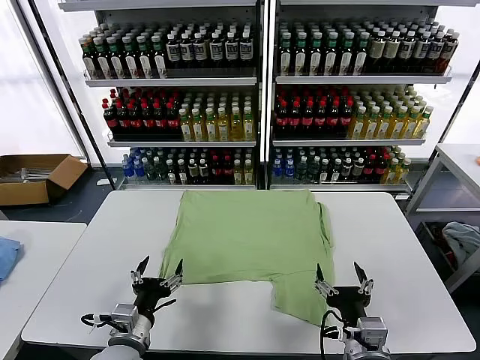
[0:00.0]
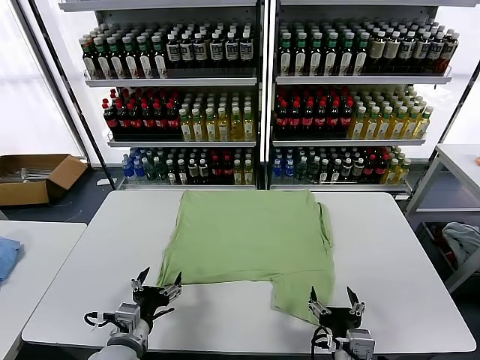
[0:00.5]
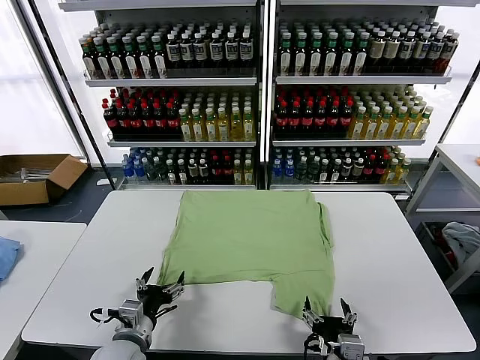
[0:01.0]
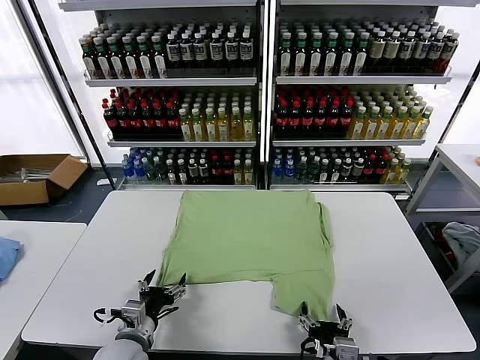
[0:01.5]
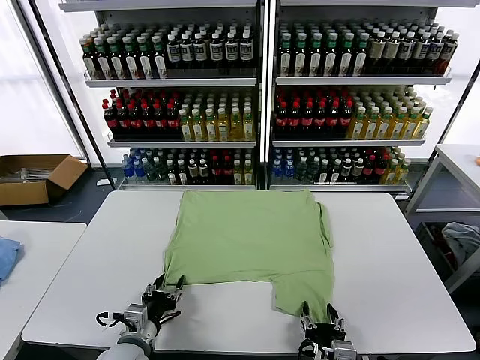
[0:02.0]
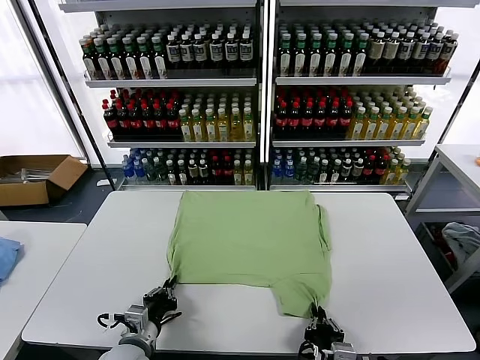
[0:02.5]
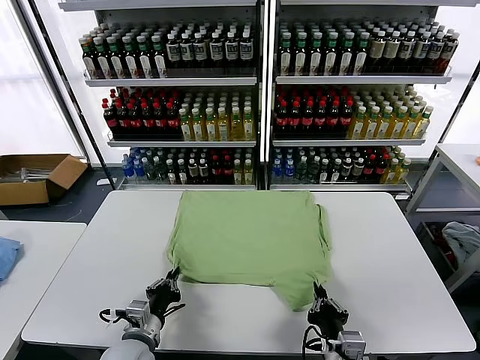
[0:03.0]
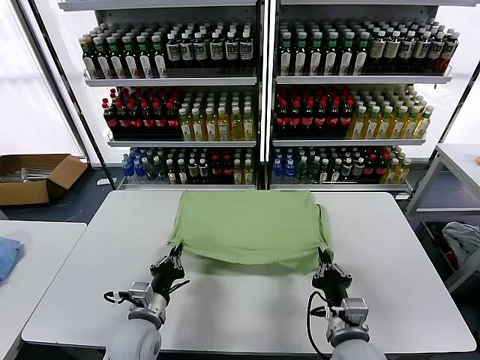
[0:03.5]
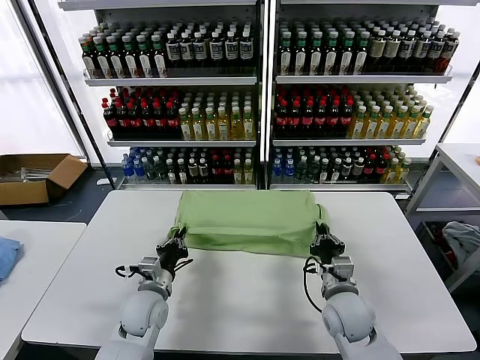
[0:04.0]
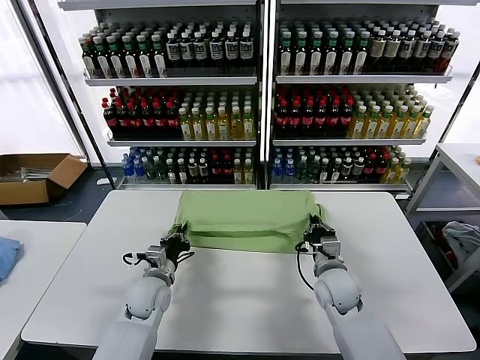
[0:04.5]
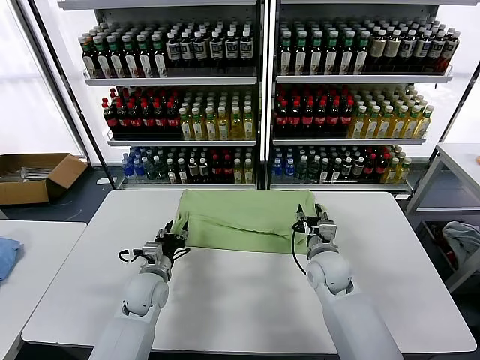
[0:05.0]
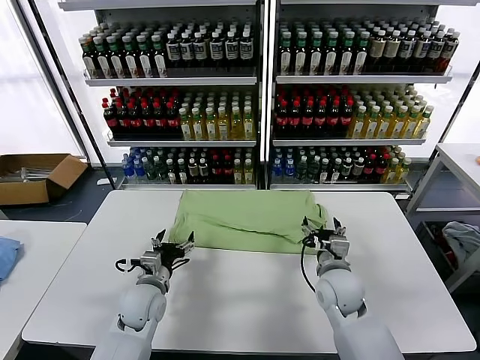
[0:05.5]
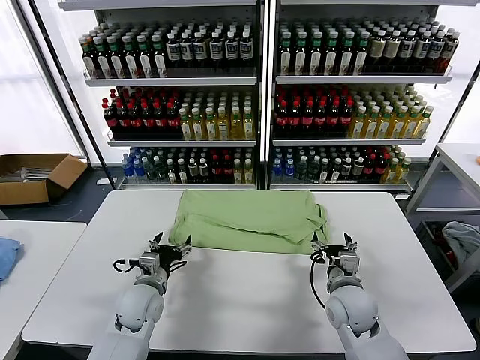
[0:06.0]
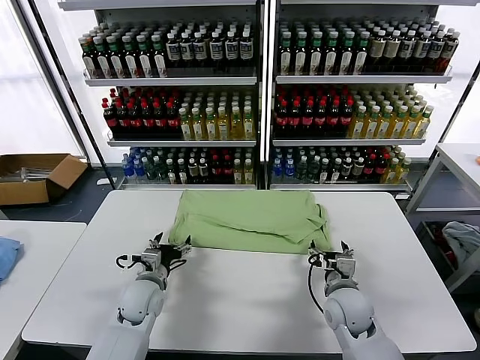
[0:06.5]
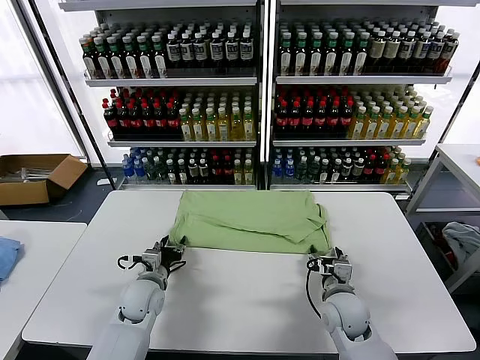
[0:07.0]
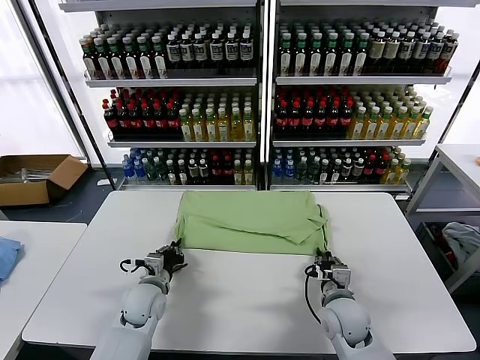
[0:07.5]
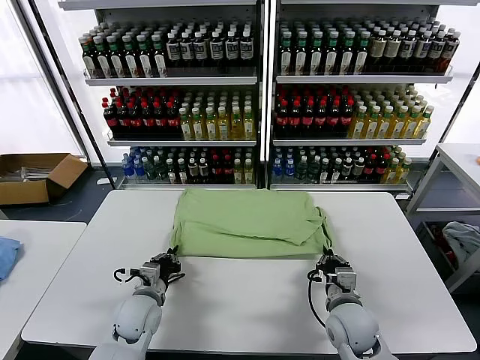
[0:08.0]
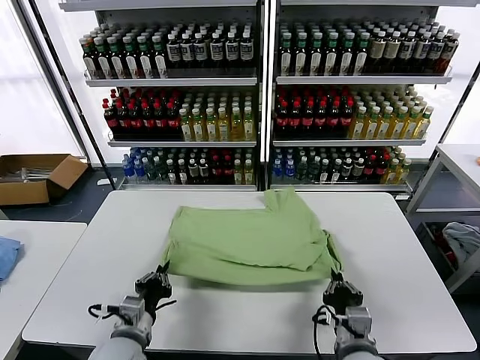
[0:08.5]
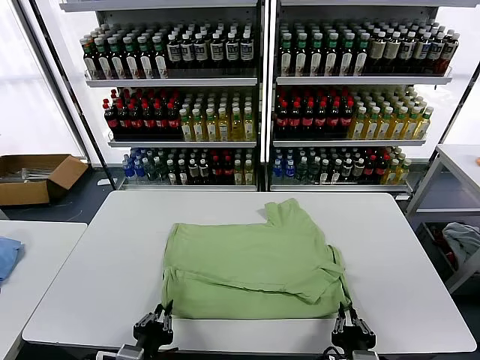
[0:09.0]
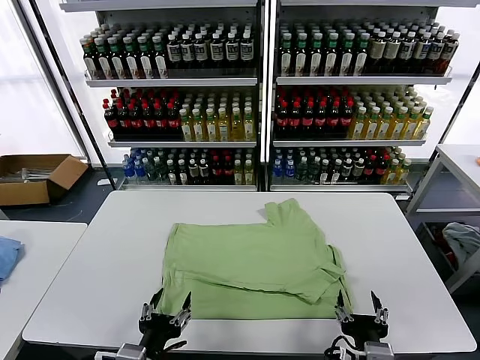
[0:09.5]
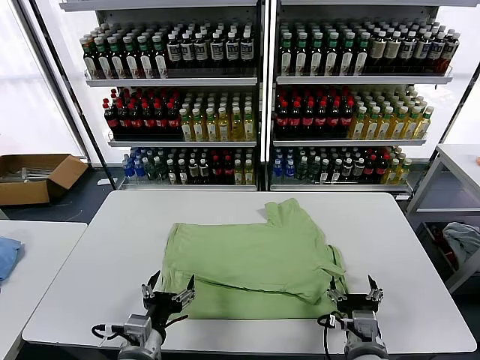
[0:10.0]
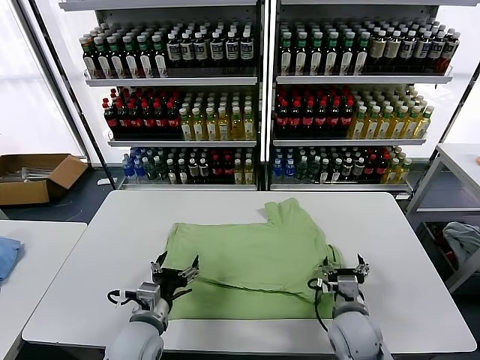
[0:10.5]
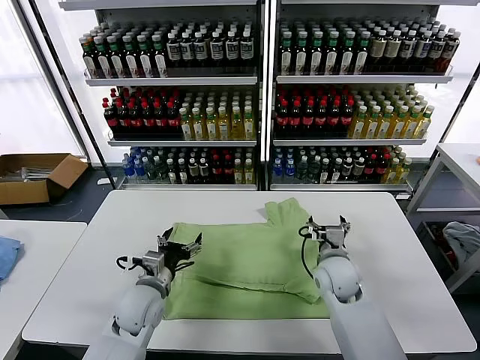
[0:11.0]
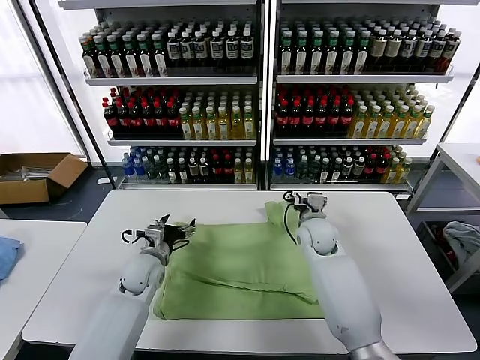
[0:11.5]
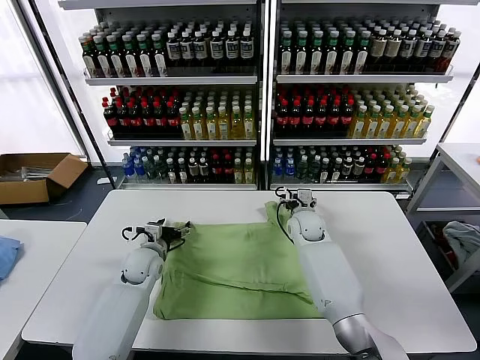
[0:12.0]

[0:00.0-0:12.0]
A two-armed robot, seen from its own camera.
Task of the whole recording: fold and organize the clothes.
Step, 0.0 to 2.5 s: use both grippers simultaneously to clamp the lower edge of the clothing fabric.
Step, 3.0 to 5.0 s: use both grippers to drag the lower edge of the fabric forward and fold it over the upper edge.
Step, 5.5 to 9.0 s: Drag the clothes downward with both gripper.
2.0 to 4.0 s: The right gripper goes approximately 20 cm forward, and closes. The left gripper moves forward, approximately 10 cm, and closes up.
4.0 to 6.0 s: The left gripper opens its fingers, while the right gripper goes forward and returns, roughly 5 cm each way, and opens.
6.0 to 8.0 s: The right gripper heads backward, covering roughly 5 cm, and closes up. The left gripper closes its fingers.
8.0 to 10.0 s: The right gripper heads backward, covering roughly 5 cm, and opens. The left gripper shifts roughly 15 cm backward and upward, and opens its fingers.
10.0 to 12.0 s: Both grippers move forward, some 30 cm.

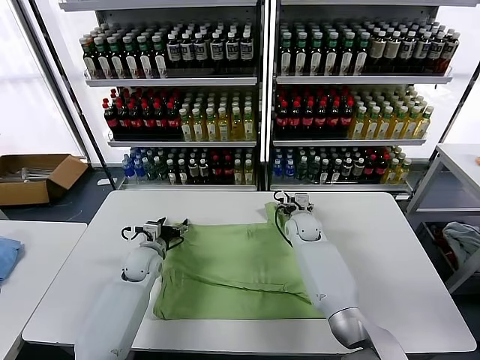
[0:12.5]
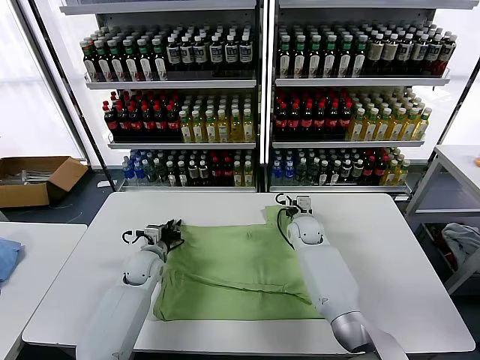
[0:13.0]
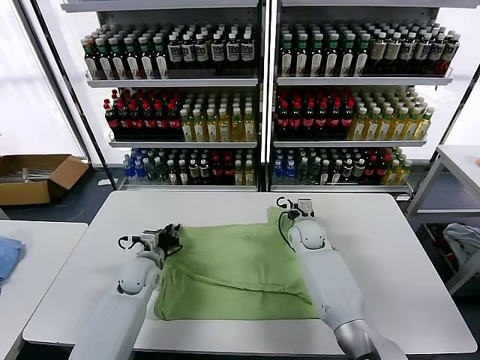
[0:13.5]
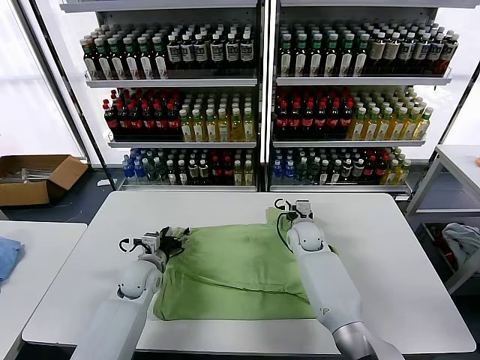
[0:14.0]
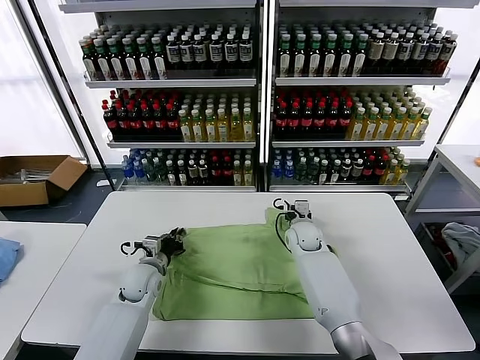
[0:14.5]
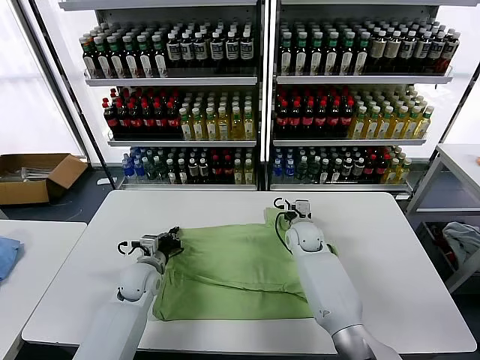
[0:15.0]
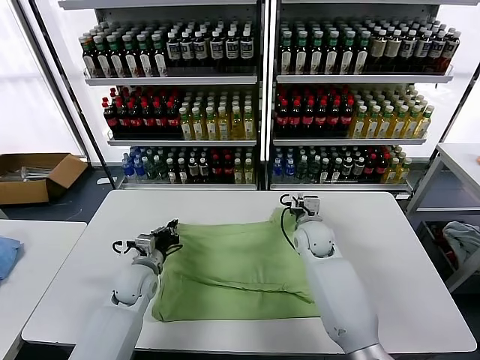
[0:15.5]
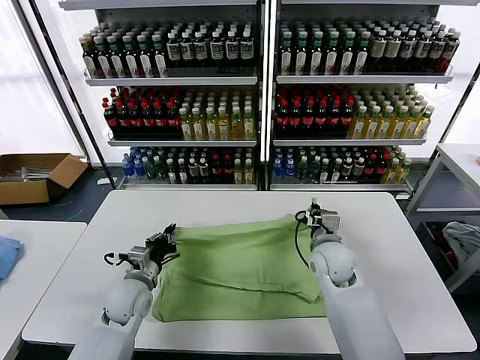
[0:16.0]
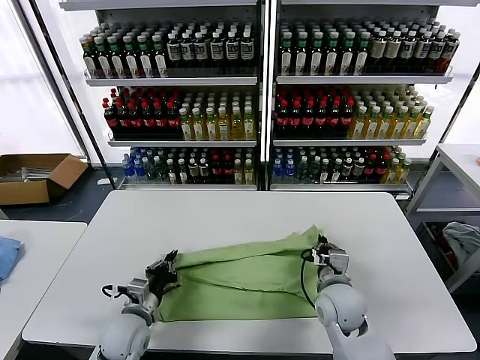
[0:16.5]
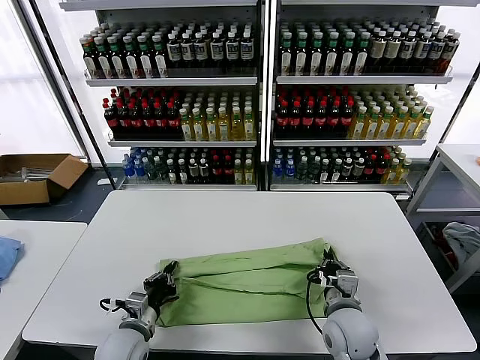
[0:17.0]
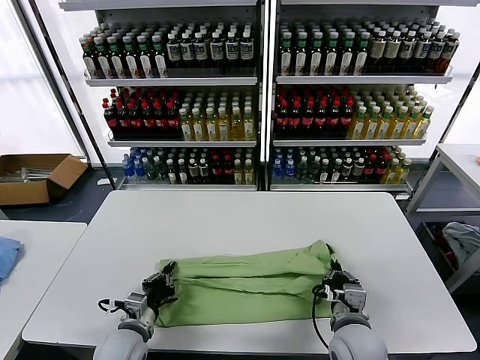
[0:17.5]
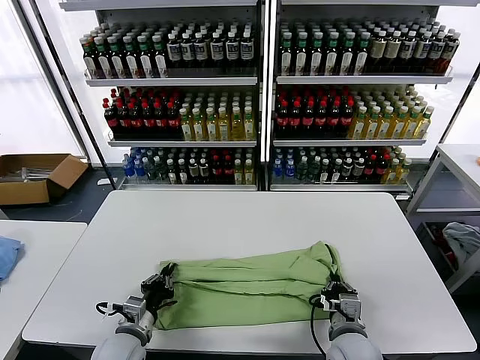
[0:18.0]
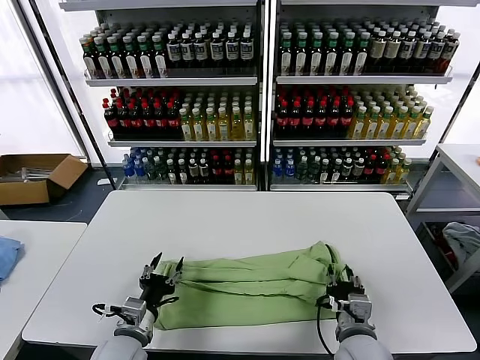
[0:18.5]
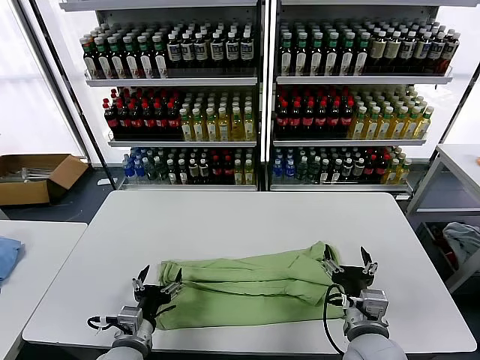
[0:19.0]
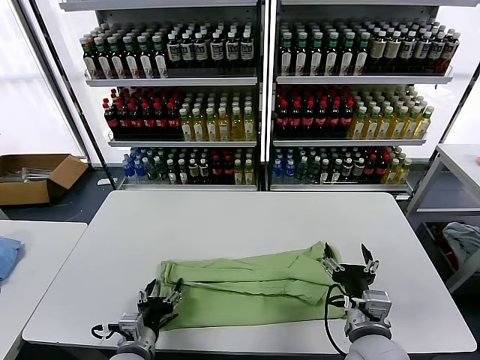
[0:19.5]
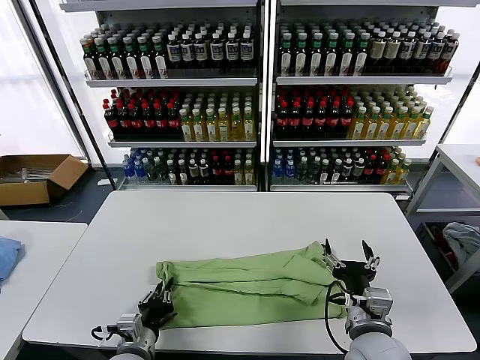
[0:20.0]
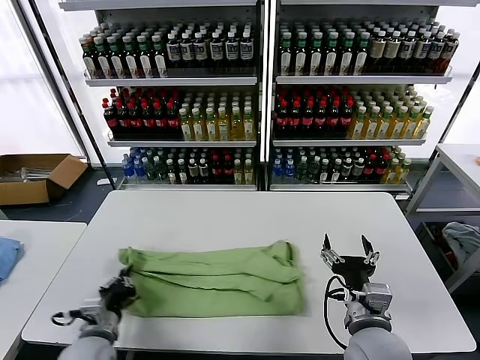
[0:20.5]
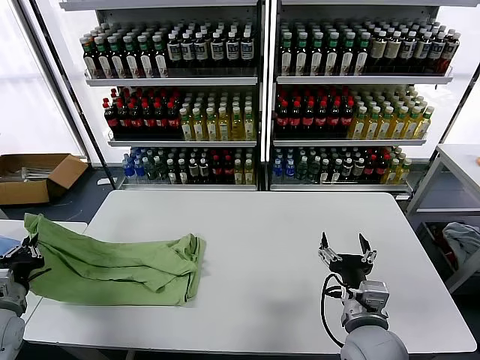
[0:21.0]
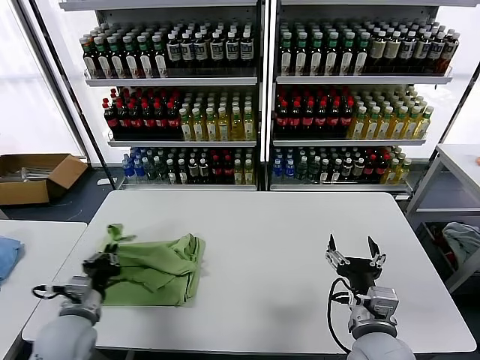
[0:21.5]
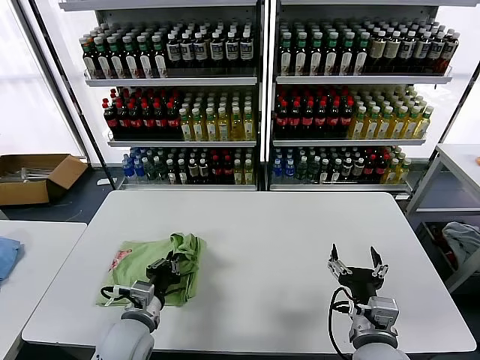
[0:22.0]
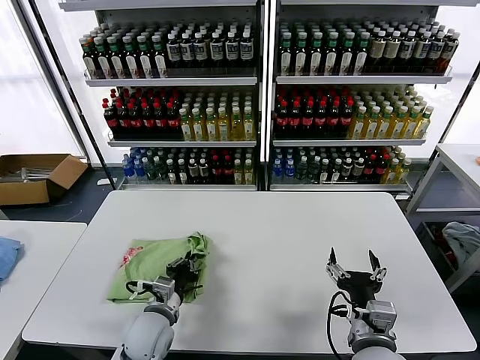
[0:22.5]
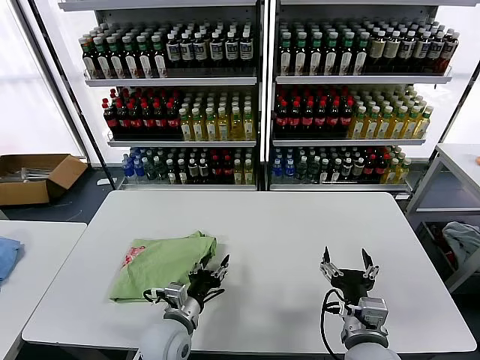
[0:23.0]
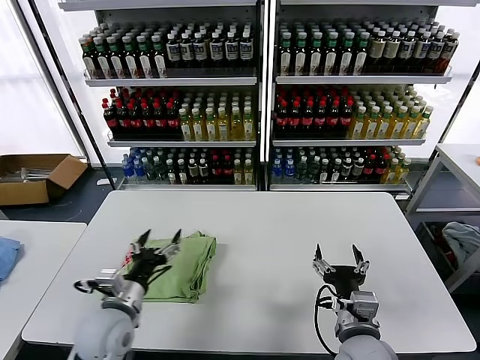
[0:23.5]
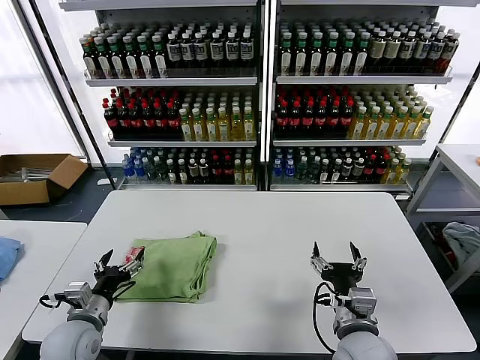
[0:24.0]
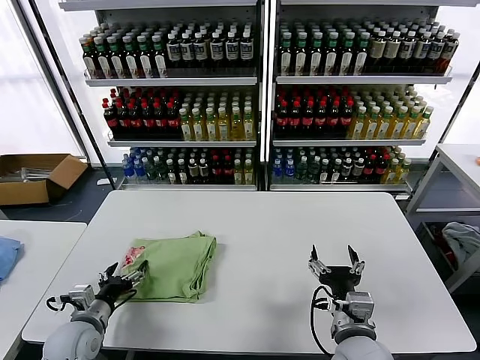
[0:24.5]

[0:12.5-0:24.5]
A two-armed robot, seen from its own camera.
Task of the whole recording: fold and organize the clothes.
Step, 12.5 to 14.5 s: use both grippers simultaneously to clamp the upper edge of the clothing fabric.
Step, 15.0 to 18.5 s: use both grippers to drag the upper edge of the fabric backward and fold it over the lower edge.
Step, 19.0 to 20.0 s: use the left gripper to clamp the left edge of the fabric.
Step, 20.5 to 23.0 s: use the left gripper to drag the left edge of the fabric to the left and folds it over the right edge.
12.5 to 14.5 s: The left gripper closes up, while the right gripper closes its fingers.
14.5 to 16.5 s: The left gripper travels backward by roughly 10 cm, while the right gripper heads backward, covering roughly 20 cm.
16.5 to 18.5 s: The left gripper shifts some 5 cm backward, and opens, while the right gripper is displaced backward by some 10 cm, and opens up.
18.5 to 20.5 s: The right gripper heads upward, covering some 5 cm, and opens its fingers. Meanwhile the left gripper ends up about 5 cm from where it was, and closes up.
20.5 to 22.5 s: The left gripper goes to the left and returns, roughly 20 cm each way.
22.5 to 24.5 s: The left gripper goes roughly 15 cm to the left, and opens its fingers.

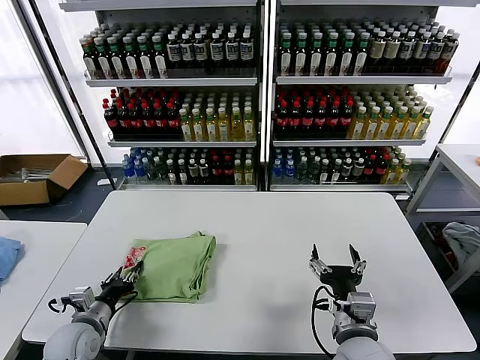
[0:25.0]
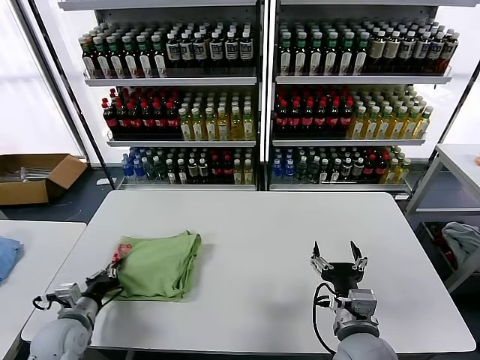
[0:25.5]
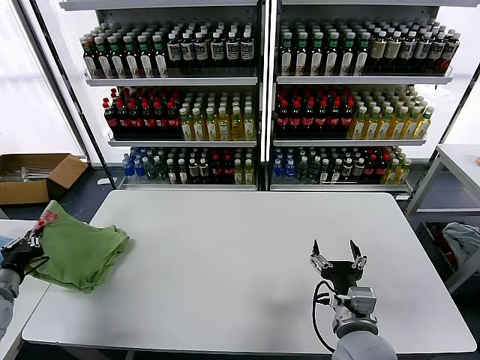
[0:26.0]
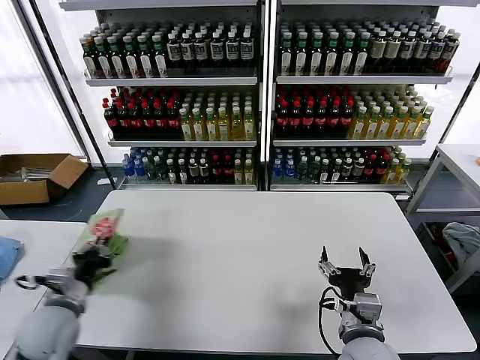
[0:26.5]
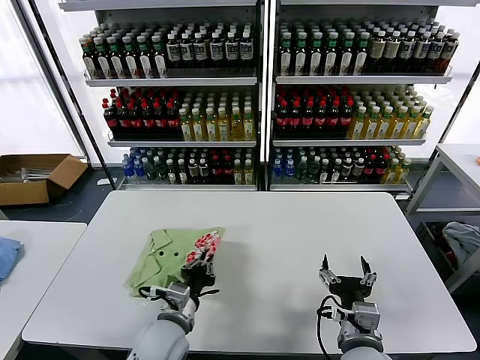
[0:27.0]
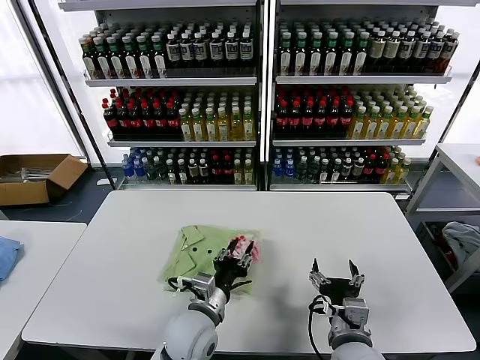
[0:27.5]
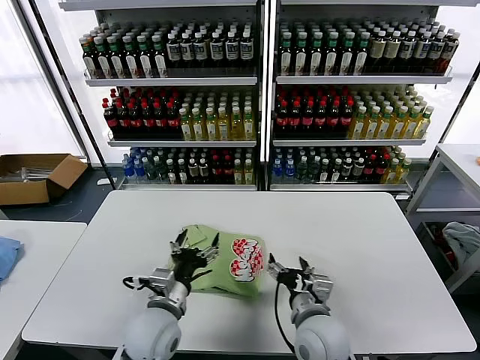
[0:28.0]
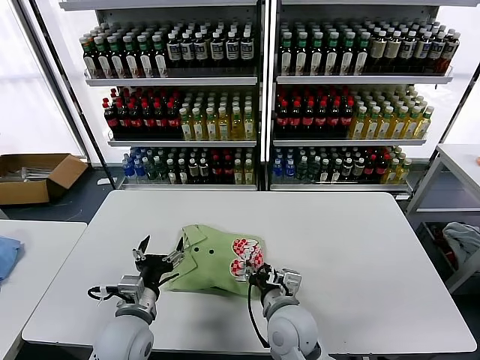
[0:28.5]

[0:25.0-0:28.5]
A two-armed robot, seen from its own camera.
Task of the whole recording: fold and organize the clothes.
Step, 25.0 to 27.5 s: Flip the folded clothes over with left gripper.
25.0 to 27.0 s: The left gripper shifts some 20 cm to the right, and closes.
27.0 to 28.5 s: The right gripper moves to the left and forward, roughly 15 cm; the left gripper changes place by approximately 5 cm, and opens its fingers.
